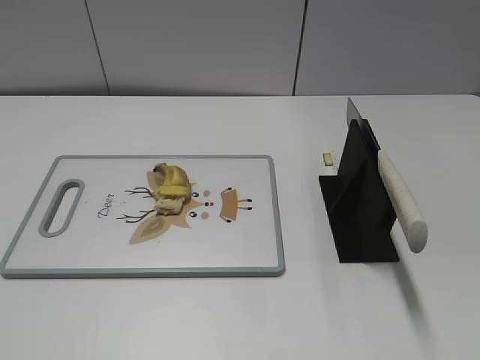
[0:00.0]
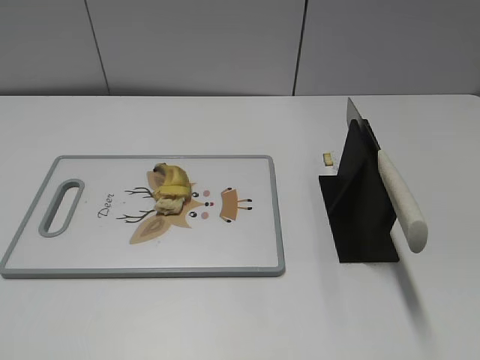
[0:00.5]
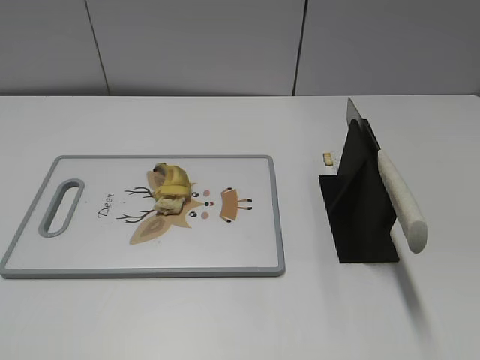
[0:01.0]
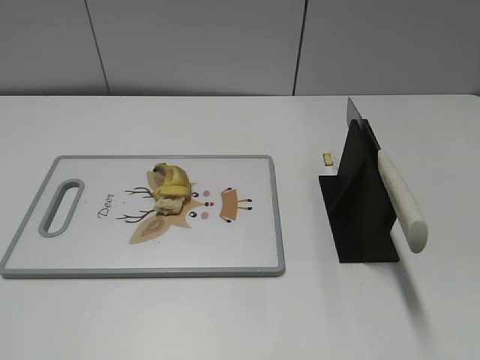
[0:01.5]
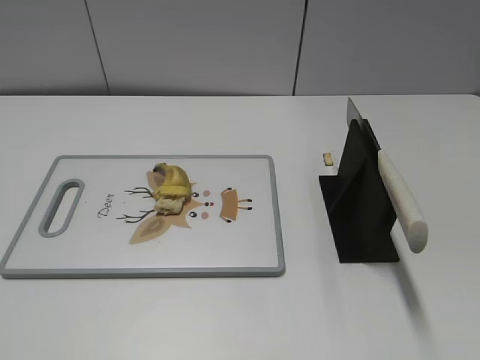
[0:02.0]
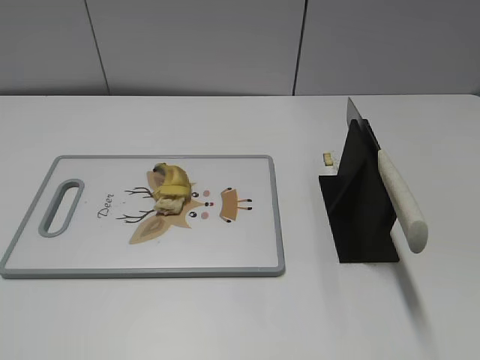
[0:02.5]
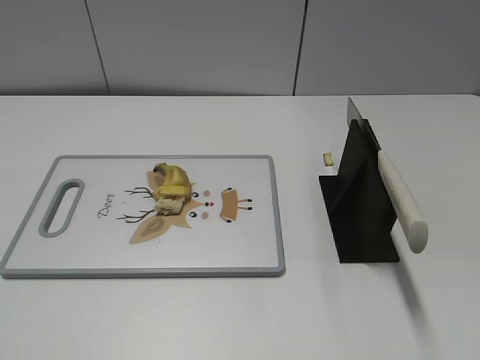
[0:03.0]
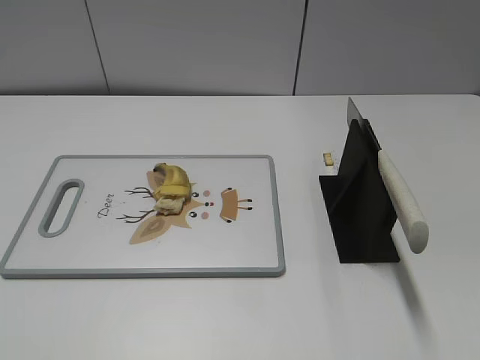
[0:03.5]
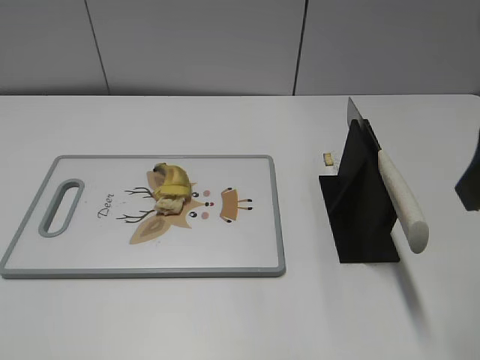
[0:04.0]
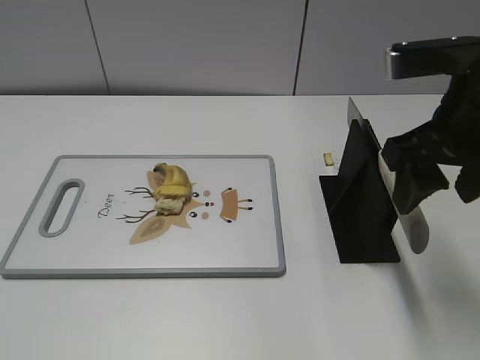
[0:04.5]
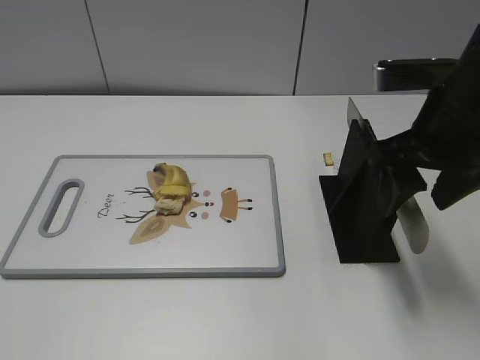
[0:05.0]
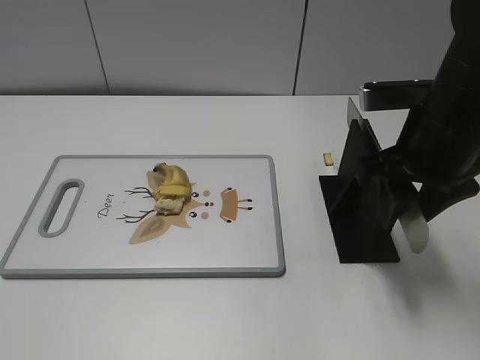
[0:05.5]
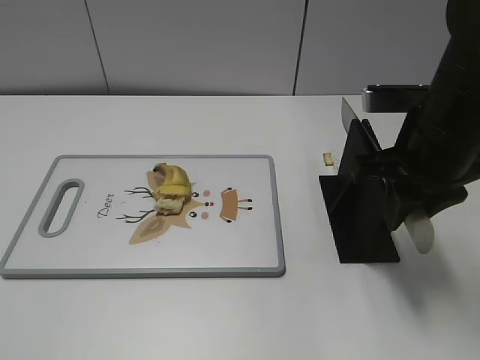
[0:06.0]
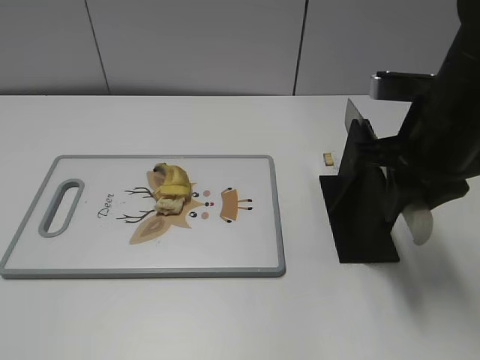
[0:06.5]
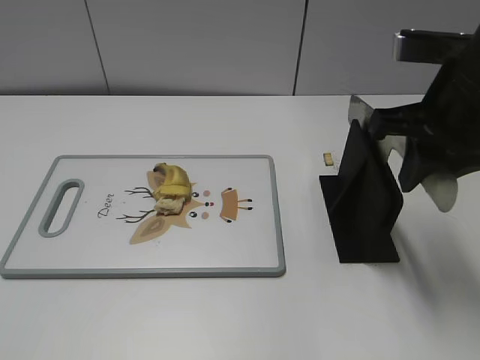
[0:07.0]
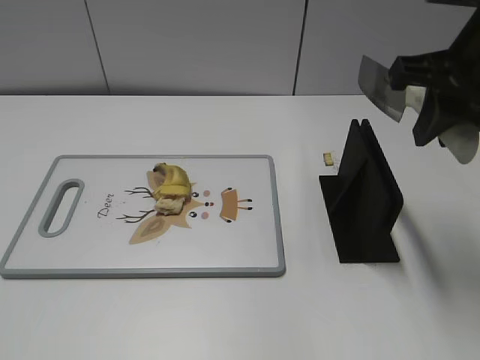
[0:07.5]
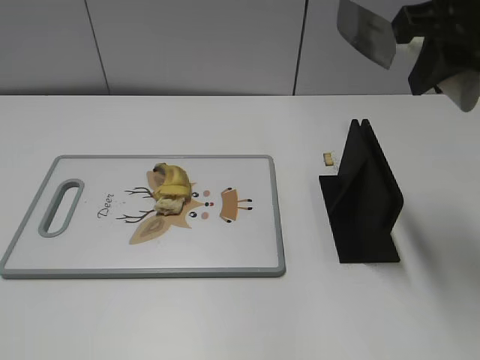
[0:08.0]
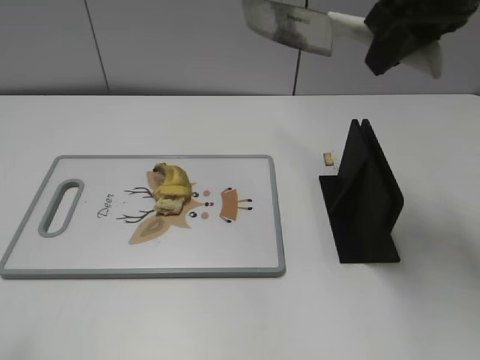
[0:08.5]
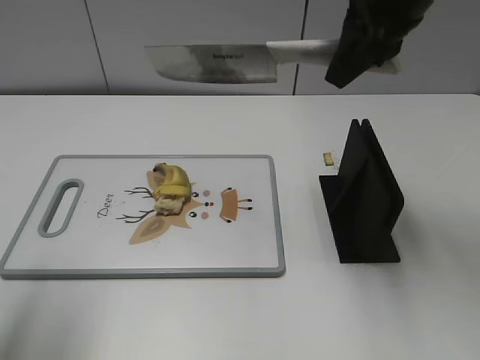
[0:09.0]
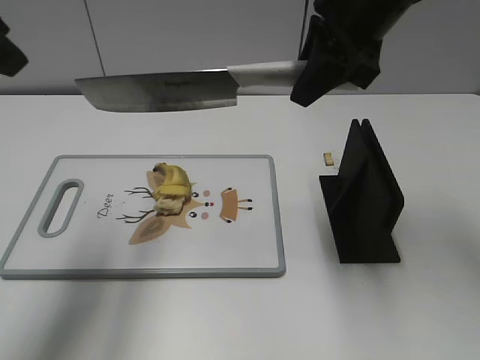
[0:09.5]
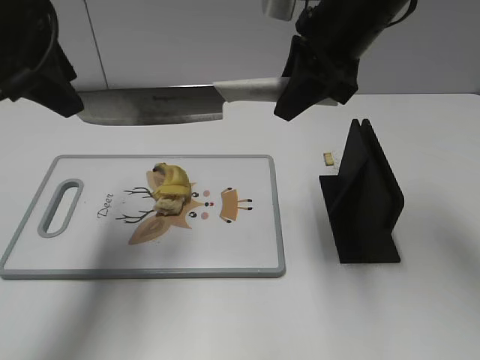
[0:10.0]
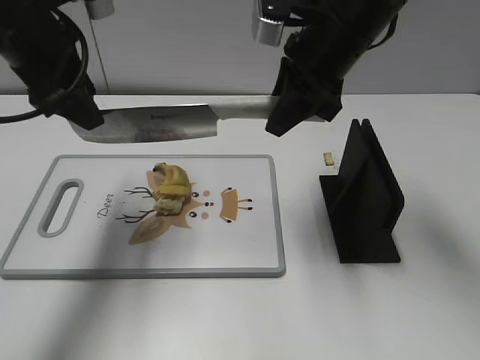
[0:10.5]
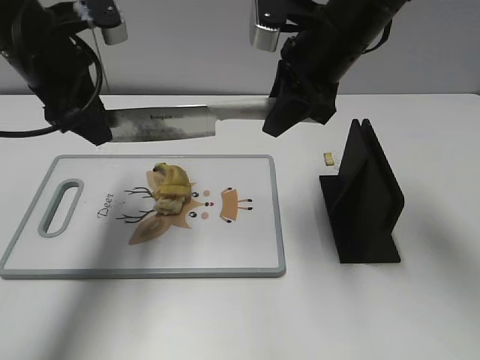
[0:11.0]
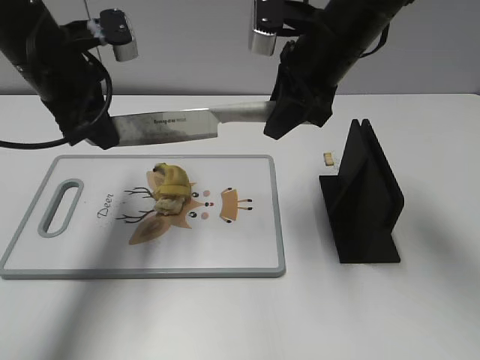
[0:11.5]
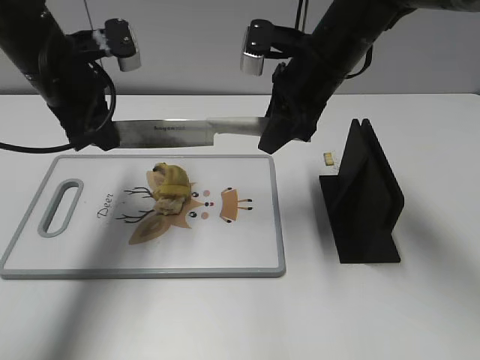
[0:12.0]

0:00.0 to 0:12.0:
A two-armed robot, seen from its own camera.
Task of the whole recording: cut banana.
Step, 0:00.0 to 0:07.5: Grab the knife handle with your right hand.
0:02.0 to 0:04.0: The right gripper moves forward and to the left, roughly 20 cm.
0:04.0 to 0:06.0: The right gripper goes about 15 cm downward and forward, and closes its fingers.
0:06.0 to 0:08.0: The right gripper heads upward, covering roughly 10 cm.
0:08.0 to 0:10.0: The right gripper goes about 15 cm forward, to the left and downward; the left gripper travels forward by about 30 cm.
0:10.0 to 0:12.0: The left gripper shifts approximately 10 cm downward and forward, and closes; the right gripper heads downward, covering approximately 5 cm.

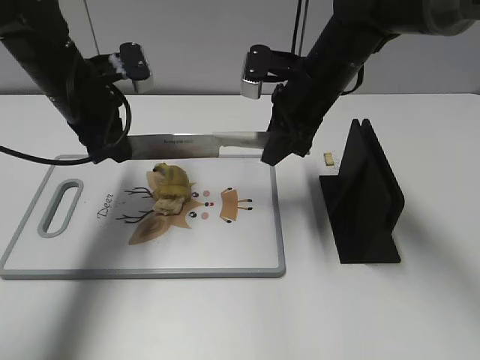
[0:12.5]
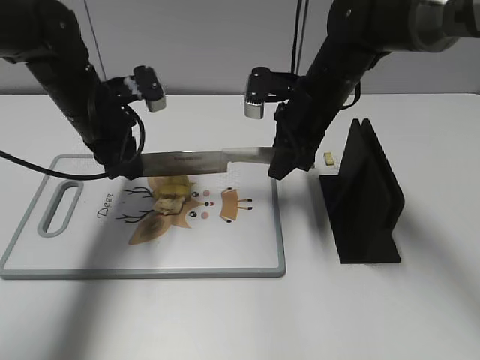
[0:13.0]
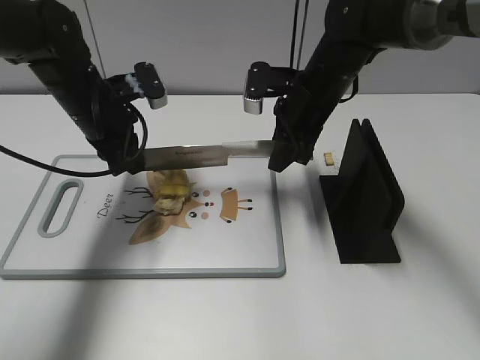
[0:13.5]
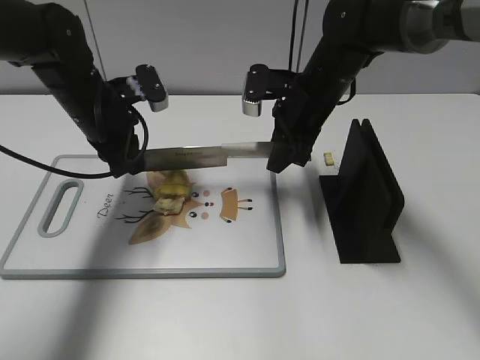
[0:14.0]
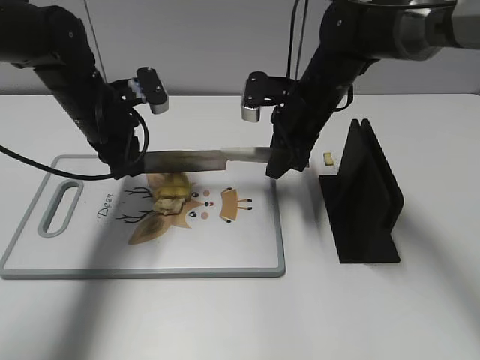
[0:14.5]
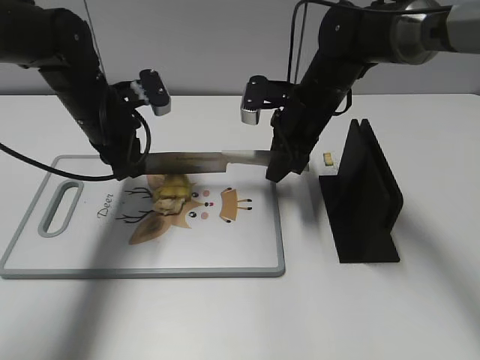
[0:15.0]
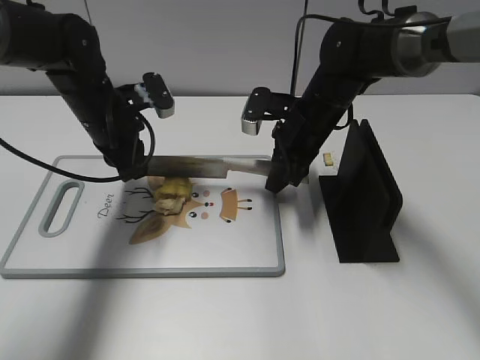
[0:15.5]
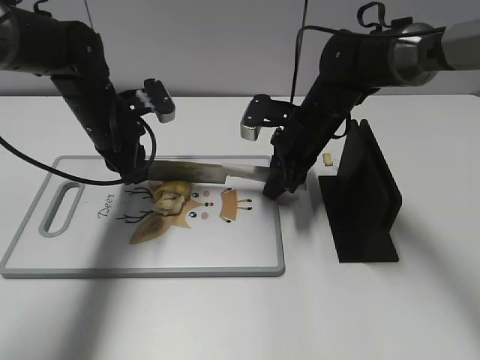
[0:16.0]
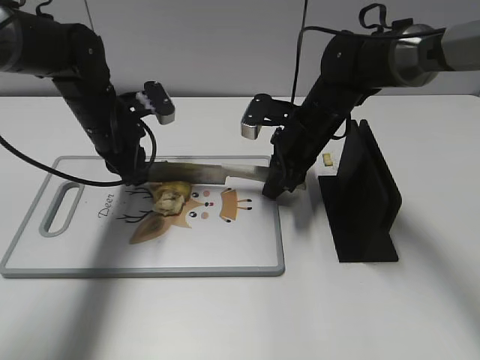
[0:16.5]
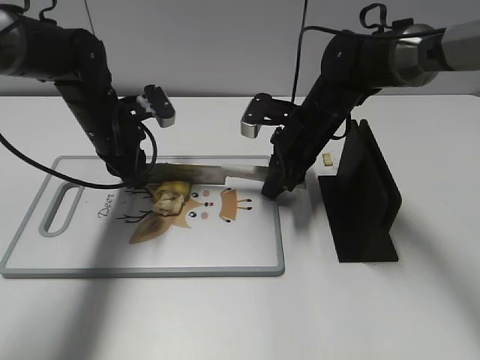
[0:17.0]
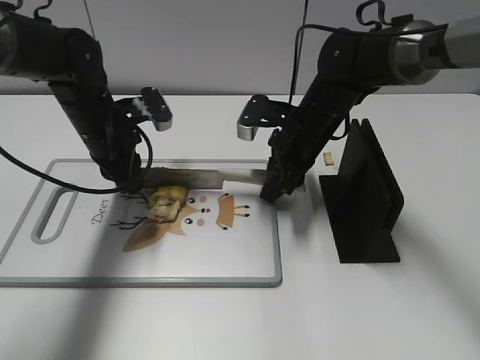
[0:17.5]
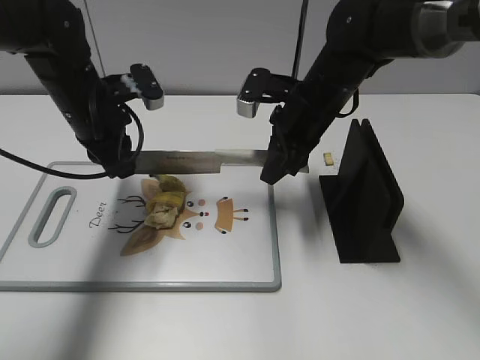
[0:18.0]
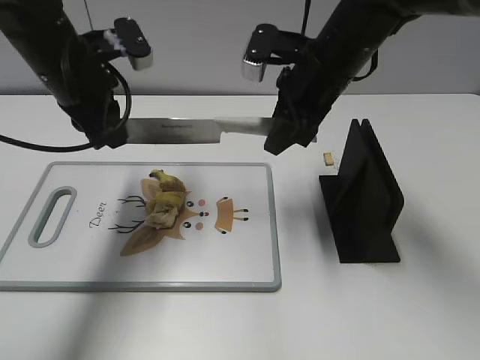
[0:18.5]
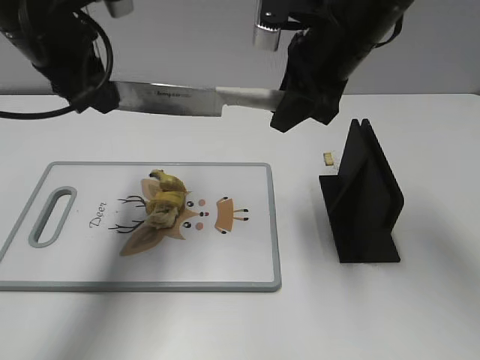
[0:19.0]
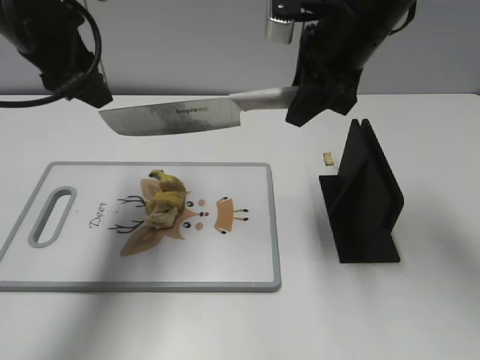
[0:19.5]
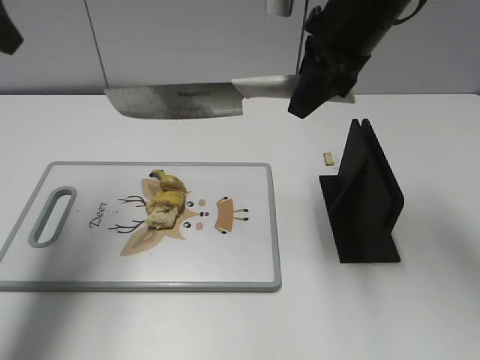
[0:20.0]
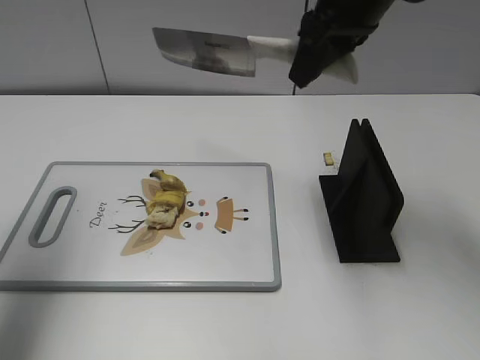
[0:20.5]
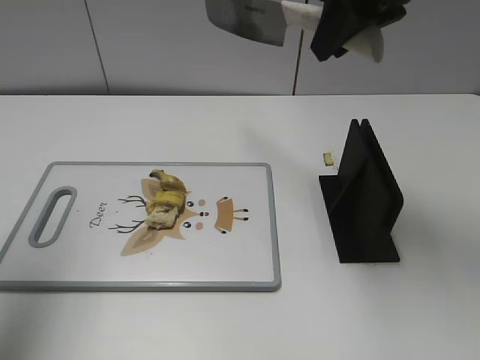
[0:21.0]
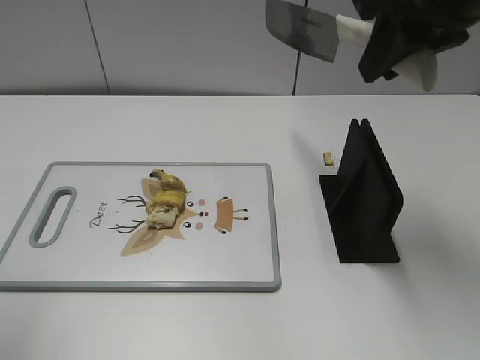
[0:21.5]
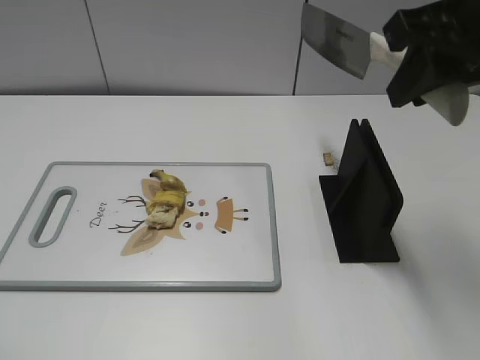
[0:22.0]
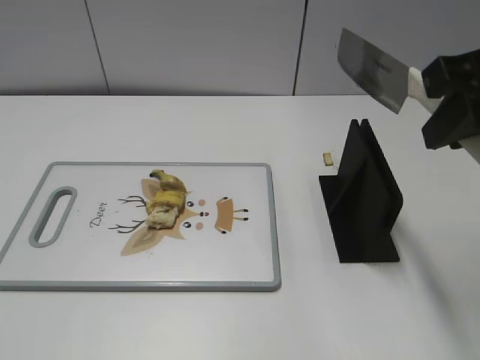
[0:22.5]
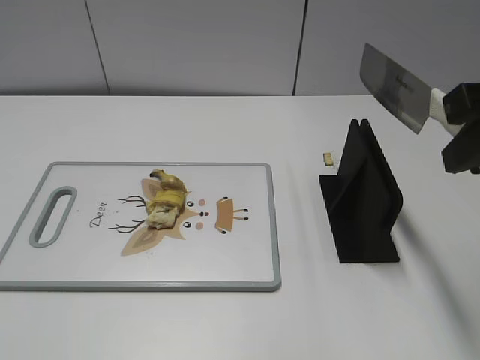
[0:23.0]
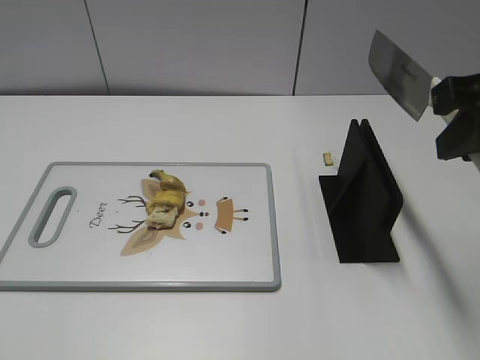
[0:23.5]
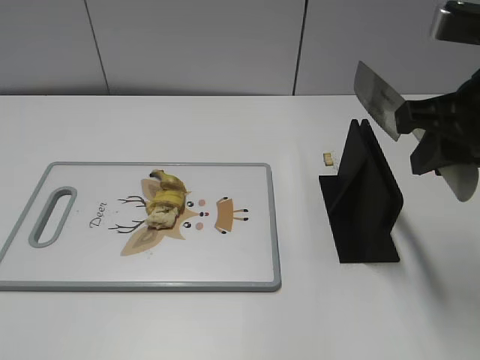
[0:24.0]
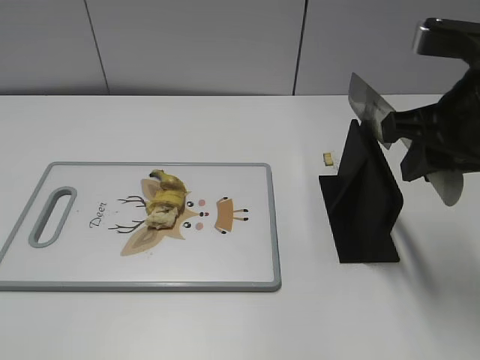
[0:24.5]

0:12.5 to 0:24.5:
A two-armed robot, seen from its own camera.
Task of the whole recording: cut banana.
Step, 0:14.5 to 0:21.5: Cut the banana with your right hand.
Step, 0:22.0 to 0:24.0: Lift the knife with your right hand.
0:12.5 to 0:14.5: The grippers make only small movements.
0:14.5 to 0:16.5: The right gripper shifts by approximately 5 cm.
0:16.5 to 0:18.5: Both grippers travel together upward, about 10 cm.
0:18.5 to 0:20.5: The left gripper goes some 20 cm upward, to the left and backward, and opens. The right gripper is displaced upward by approximately 10 cm.
0:20.5 to 0:22.5: The right gripper moves backward and to the right, about 15 cm, while the left gripper travels backward by some 25 cm.
0:22.5 to 0:24.5: The right gripper goes roughly 5 cm downward.

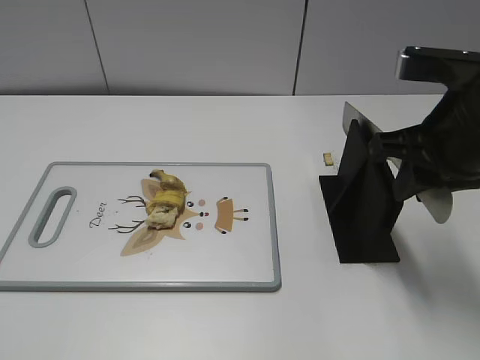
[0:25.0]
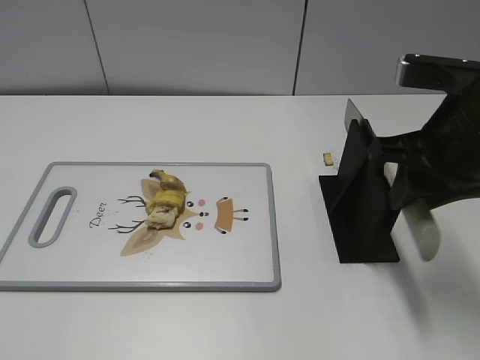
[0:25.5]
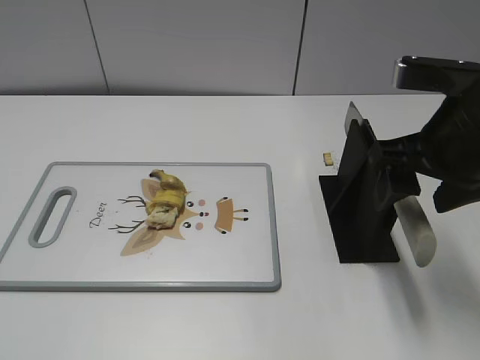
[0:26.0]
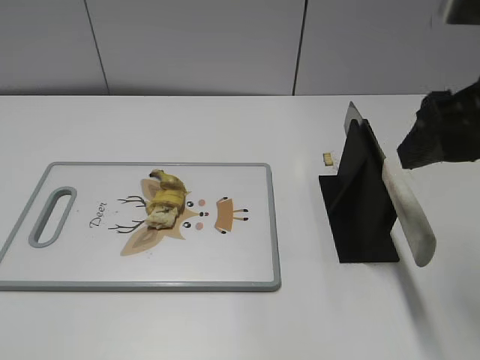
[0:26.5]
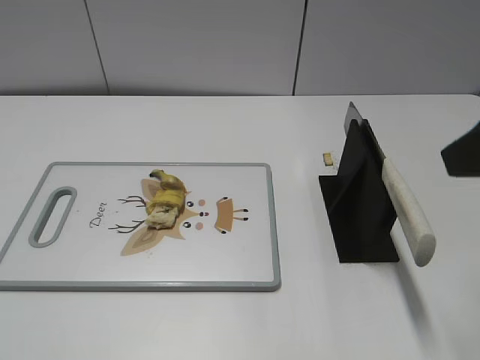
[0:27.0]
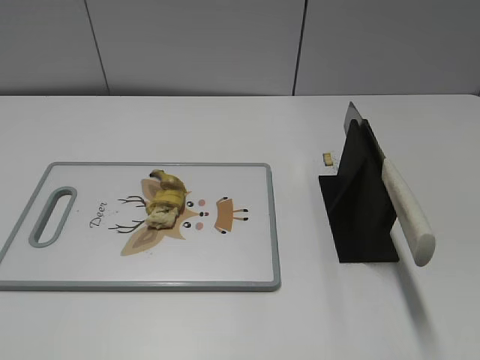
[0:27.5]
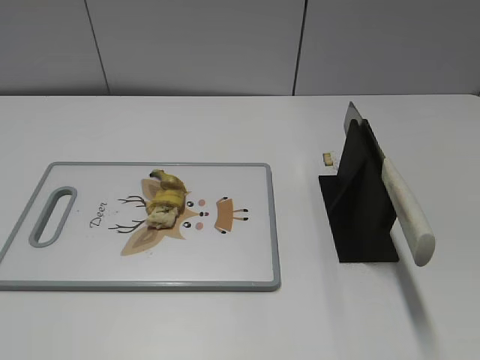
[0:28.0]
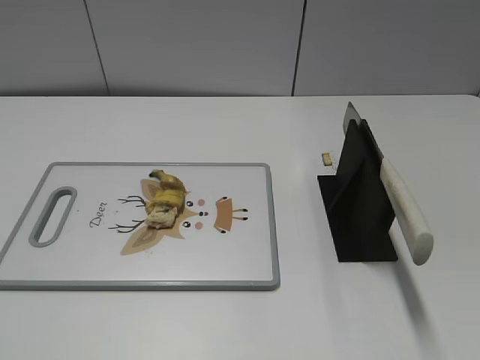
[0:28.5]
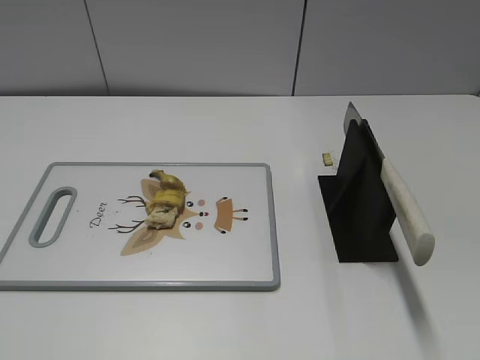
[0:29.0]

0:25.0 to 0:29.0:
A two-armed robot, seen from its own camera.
Task of the whole recording: cut banana.
0:25.0 to 0:27.0: The right gripper moves upward and backward, about 10 cm, and opens up.
0:27.0 to 0:29.0: The right gripper goes roughly 20 cm backward and to the right.
